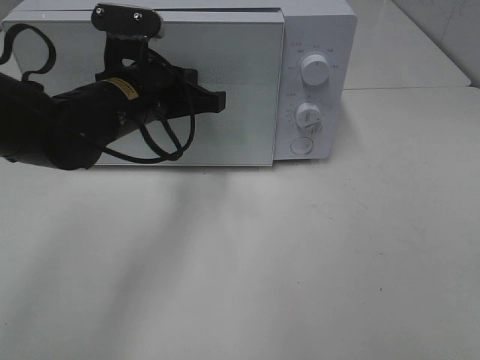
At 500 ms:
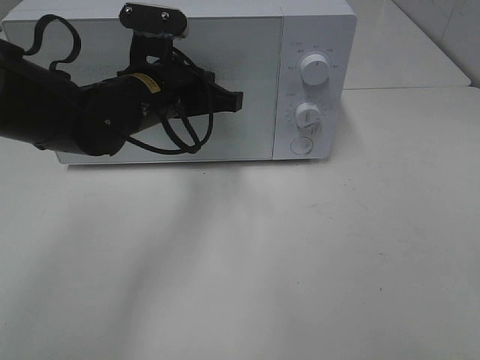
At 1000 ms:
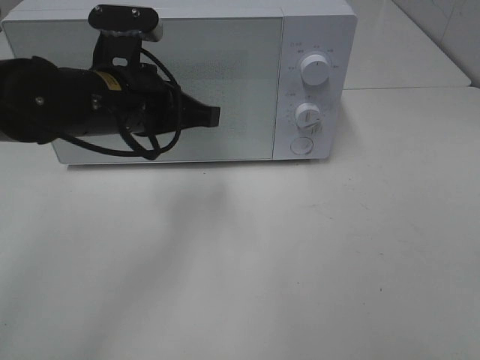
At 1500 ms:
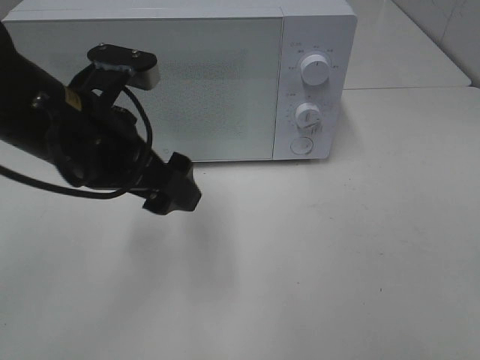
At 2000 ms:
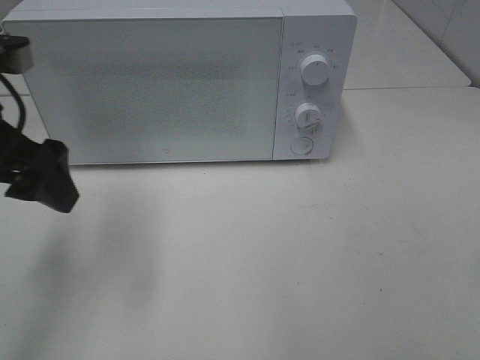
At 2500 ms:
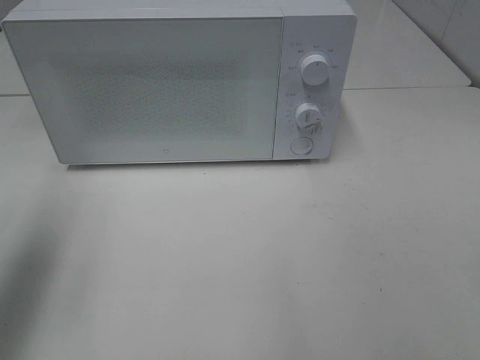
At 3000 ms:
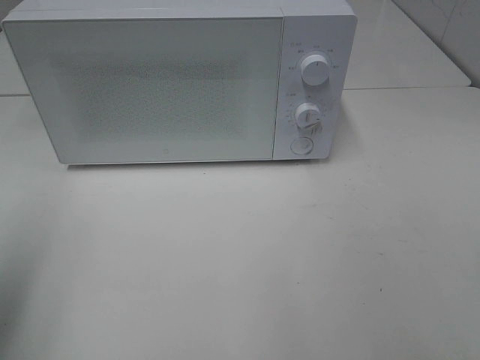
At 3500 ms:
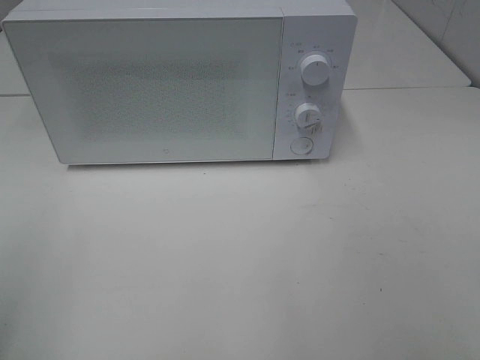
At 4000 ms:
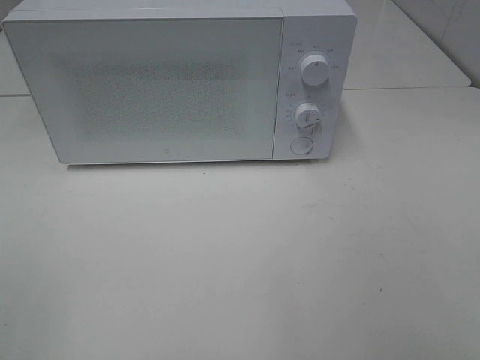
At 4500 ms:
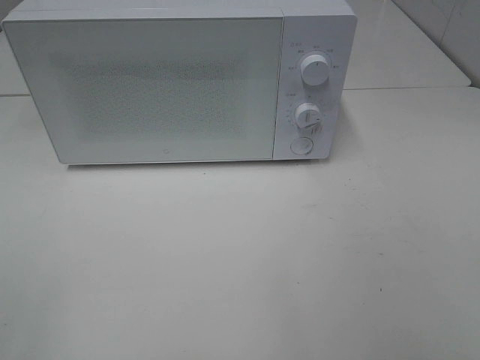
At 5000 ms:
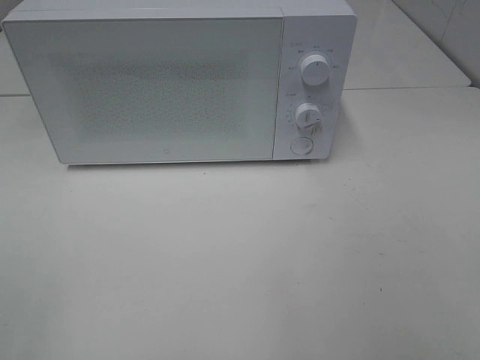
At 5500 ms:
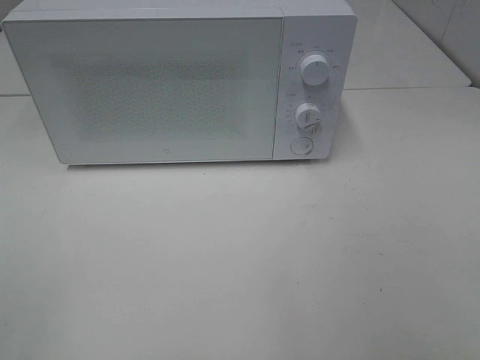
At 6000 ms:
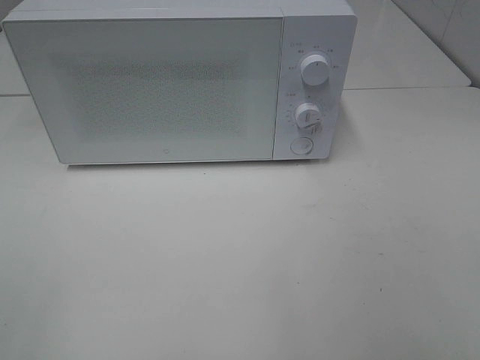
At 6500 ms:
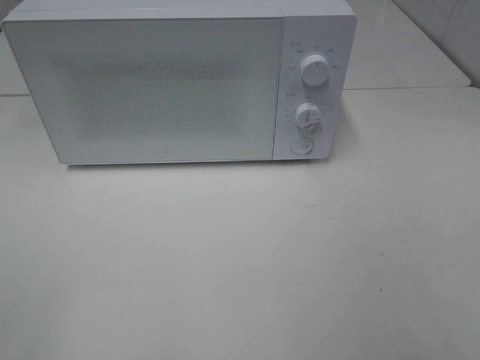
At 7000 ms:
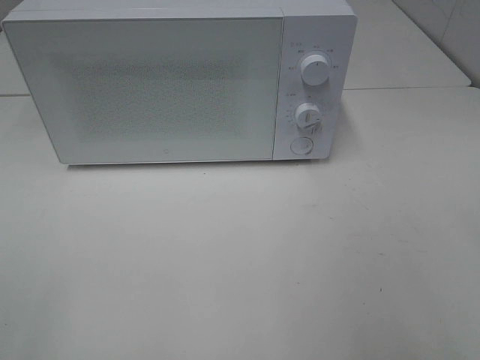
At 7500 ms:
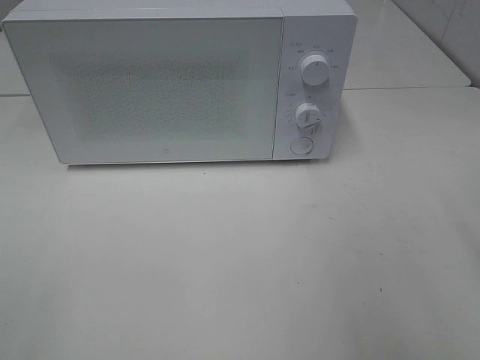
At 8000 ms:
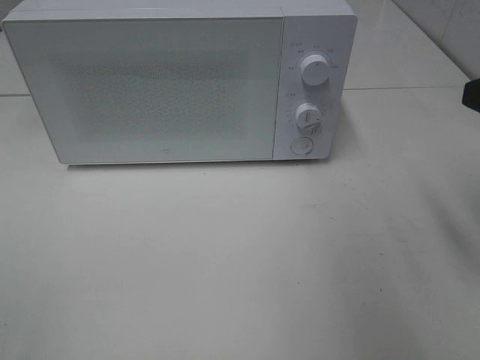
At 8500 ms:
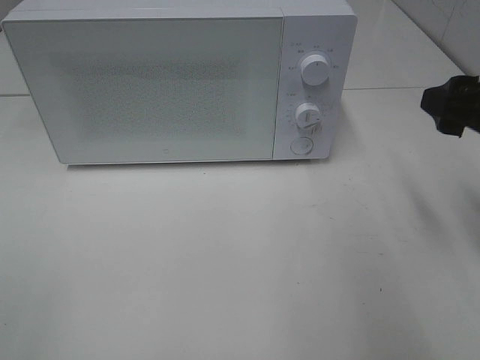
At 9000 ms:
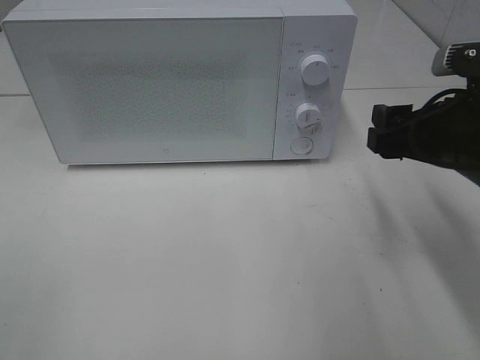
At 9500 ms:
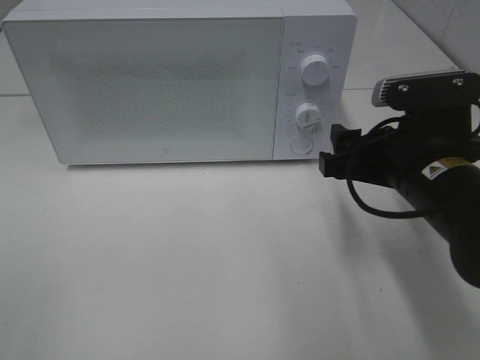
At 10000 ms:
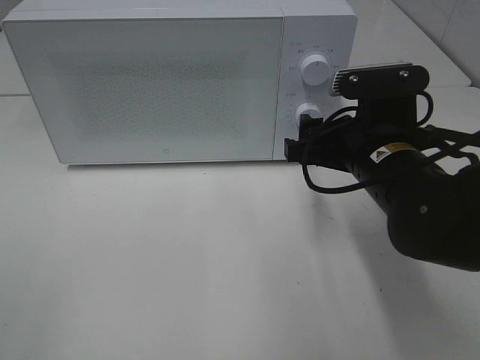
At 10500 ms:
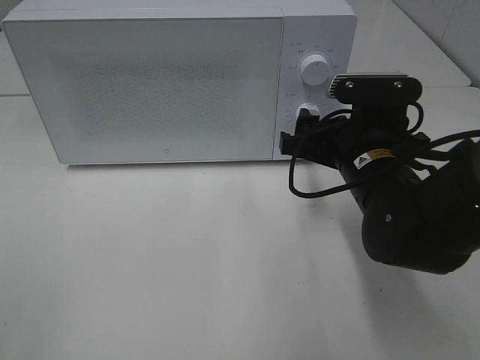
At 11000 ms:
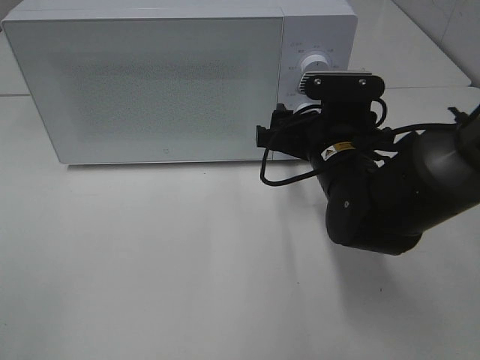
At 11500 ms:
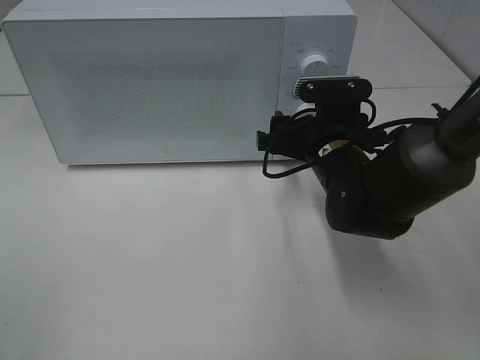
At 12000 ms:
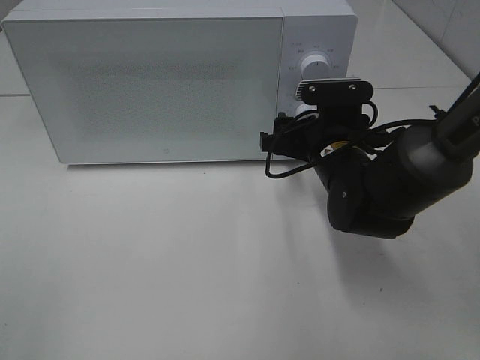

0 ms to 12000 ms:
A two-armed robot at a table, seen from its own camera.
Task of the whole recording: Heat Sandwich.
0 ms to 2000 ms: The left gripper heads to the left, backward and upward, covering some 15 cm, and opens up.
2000 ms to 4000 ms: The left gripper moves backward and to the left, approximately 25 cm.
4000 ms to 6000 ms: Both grippers stay about where they are.
6000 ms to 8000 ms: The right gripper heads forward, covering about 20 cm.
8000 ms to 10000 ms: The right gripper shifts roughly 20 cm to the left, downward and forward.
10000 ms to 12000 ms: The right gripper shifts about 5 cm forward.

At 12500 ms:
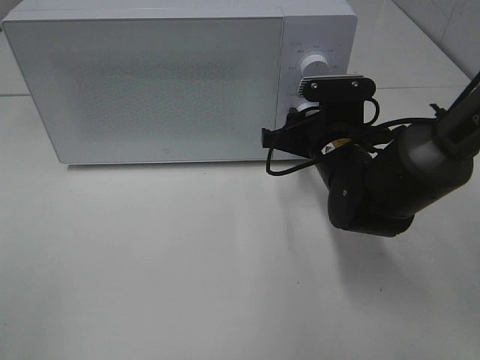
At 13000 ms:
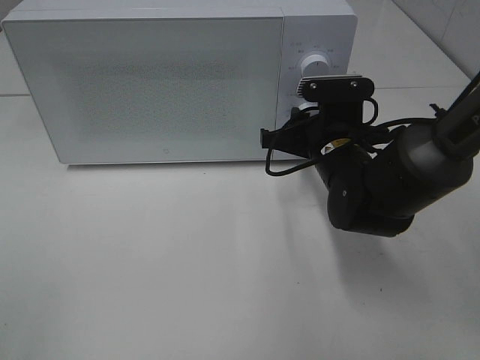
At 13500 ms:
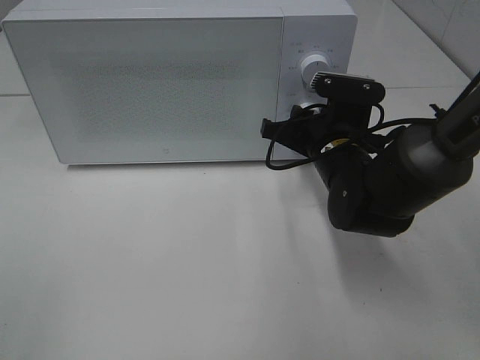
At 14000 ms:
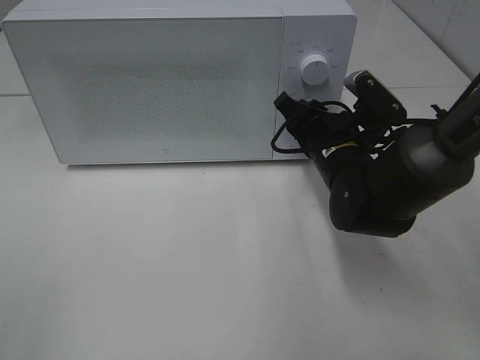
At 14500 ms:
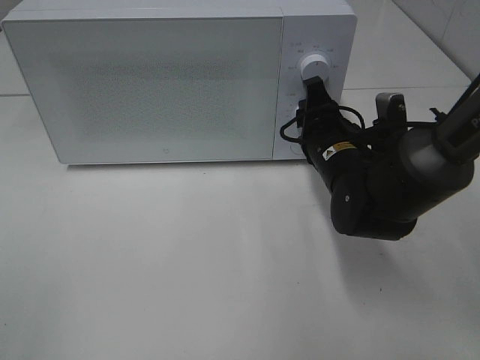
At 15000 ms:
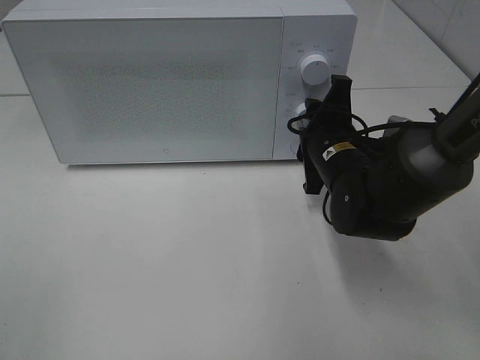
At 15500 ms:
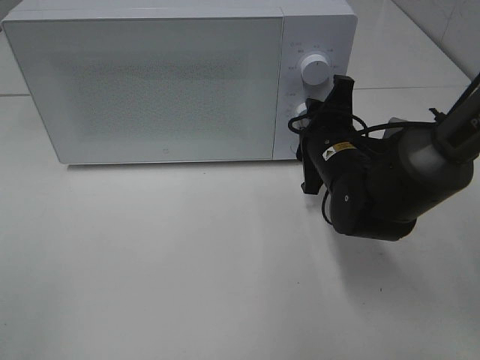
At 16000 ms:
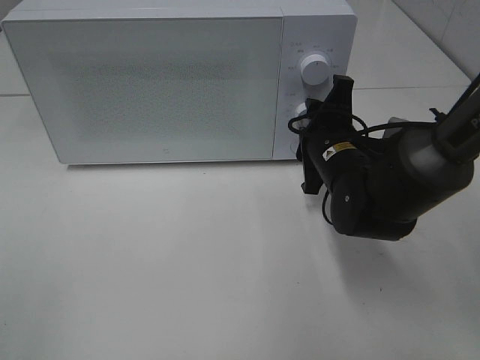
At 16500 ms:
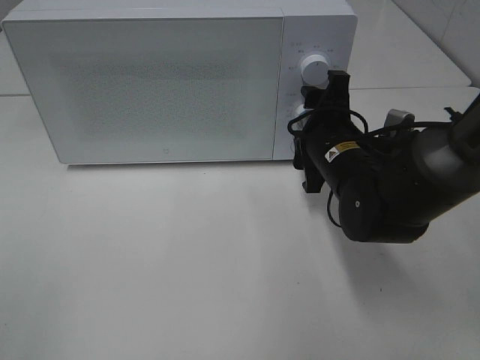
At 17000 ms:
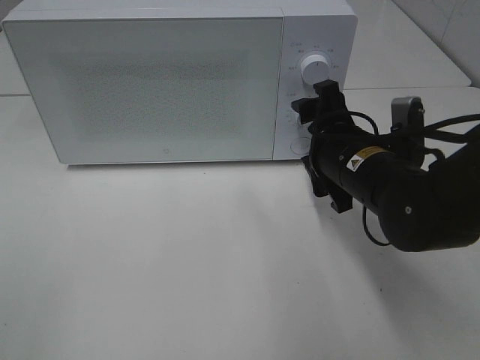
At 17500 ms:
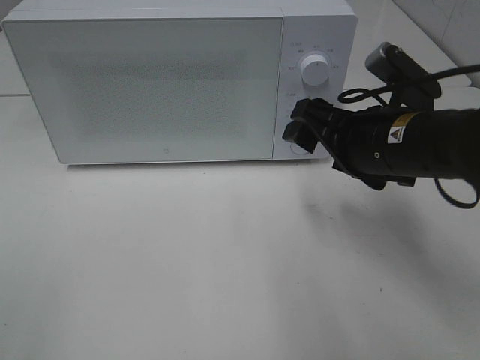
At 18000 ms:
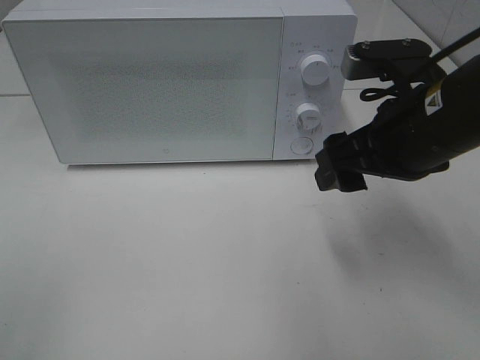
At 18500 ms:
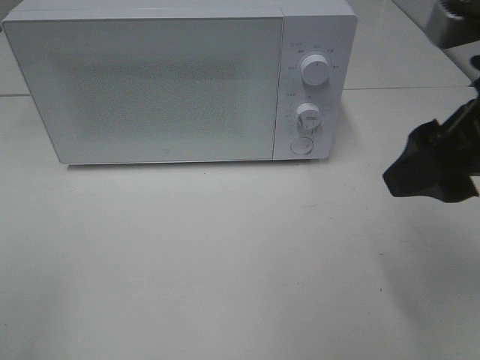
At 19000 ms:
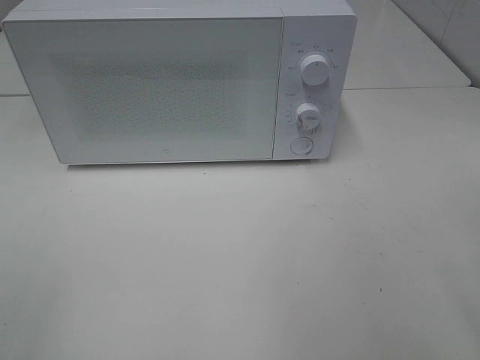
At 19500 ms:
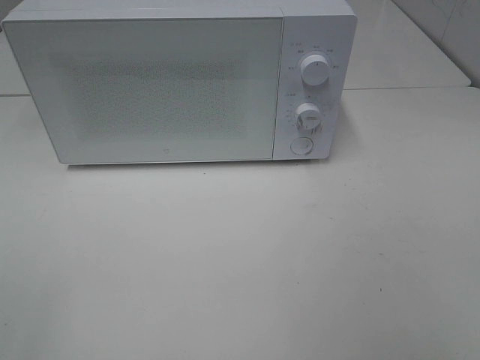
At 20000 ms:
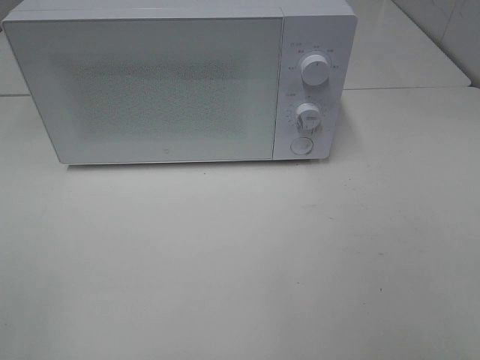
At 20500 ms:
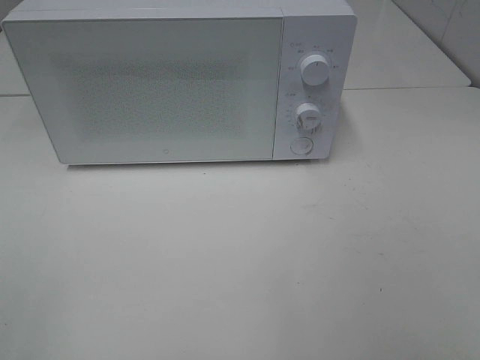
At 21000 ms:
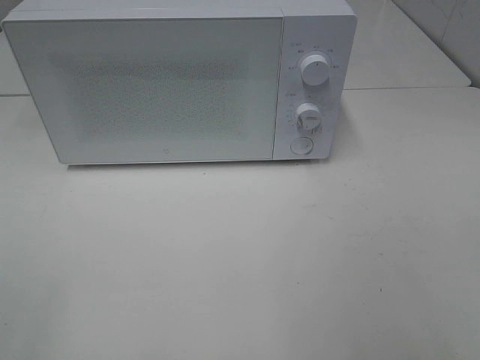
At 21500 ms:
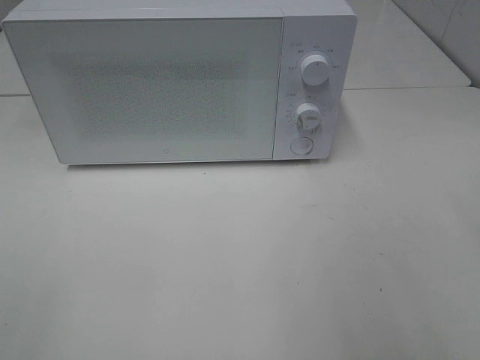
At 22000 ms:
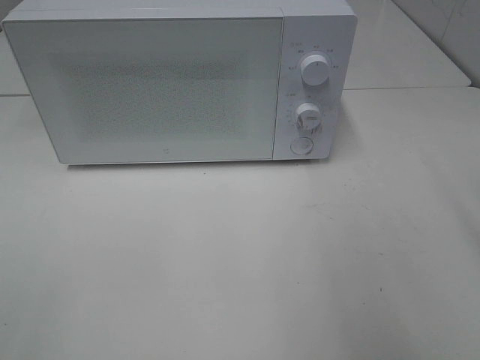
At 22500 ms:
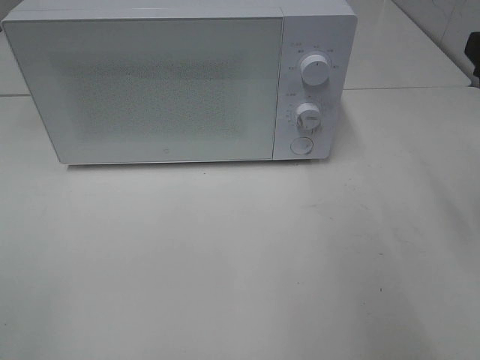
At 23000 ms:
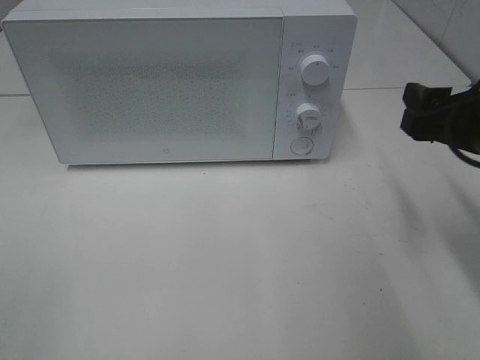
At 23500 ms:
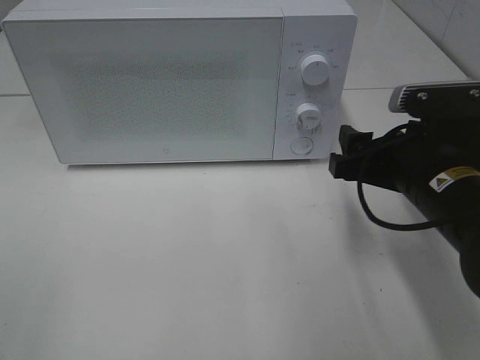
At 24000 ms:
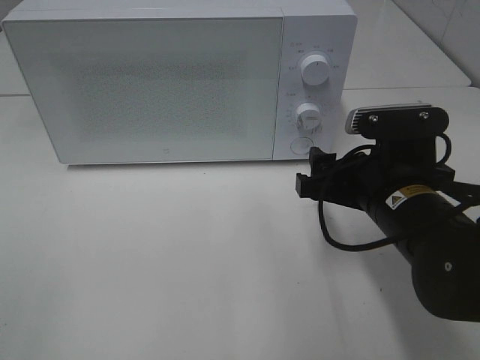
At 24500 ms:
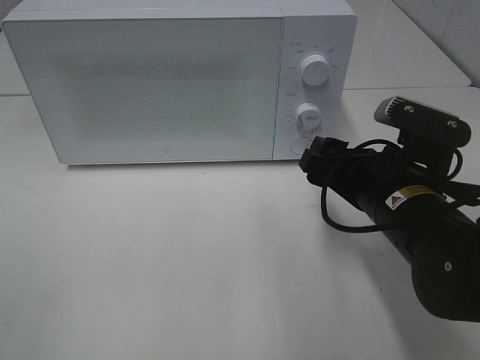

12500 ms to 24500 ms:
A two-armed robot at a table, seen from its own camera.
Task of the whole recording: Heat Sandwich.
Step, 12500 ms to 17000 ms: Right hand: twist timer button.
16500 ms to 18500 ms: The right gripper is displaced upward, backward and to the right by approximately 25 cm.
18500 ms to 20500 ms: The right gripper is displaced backward and to the right by some 20 cm.
22500 ms to 24500 ms: The right gripper heads to the left and downward, covering about 15 cm.

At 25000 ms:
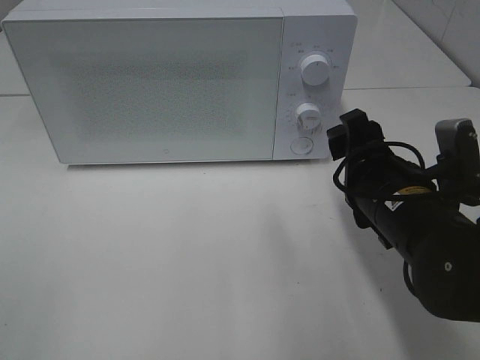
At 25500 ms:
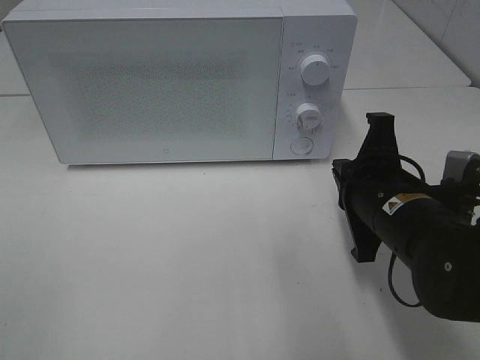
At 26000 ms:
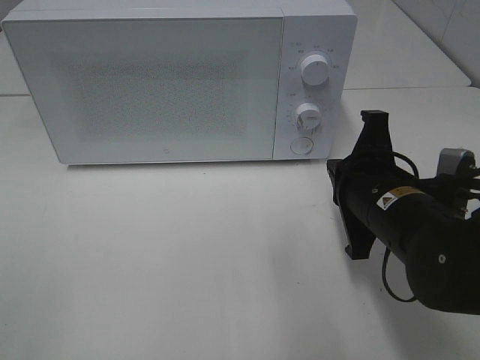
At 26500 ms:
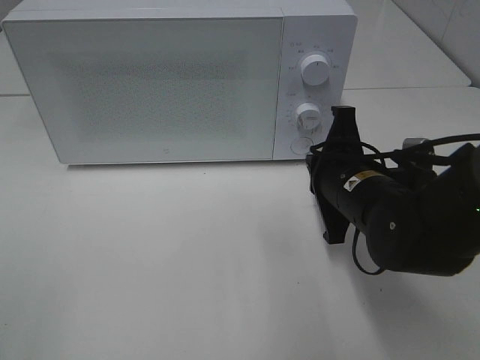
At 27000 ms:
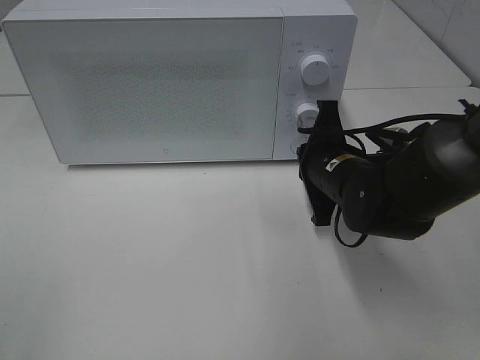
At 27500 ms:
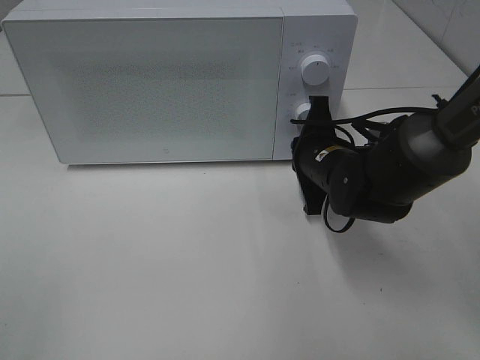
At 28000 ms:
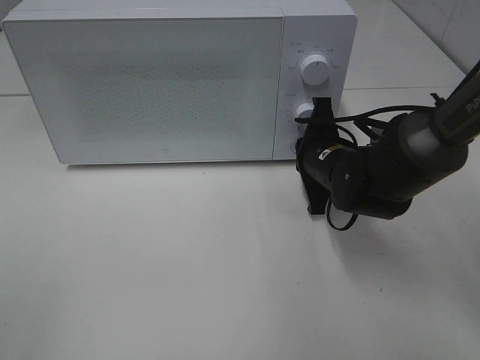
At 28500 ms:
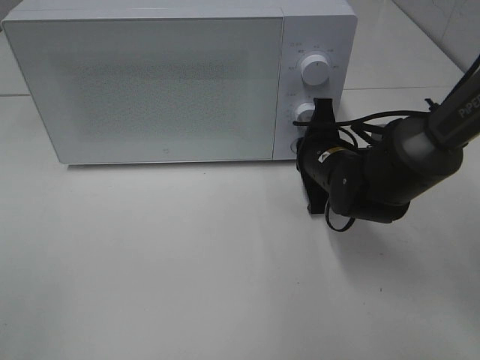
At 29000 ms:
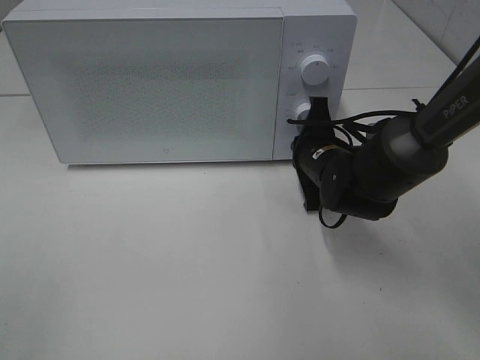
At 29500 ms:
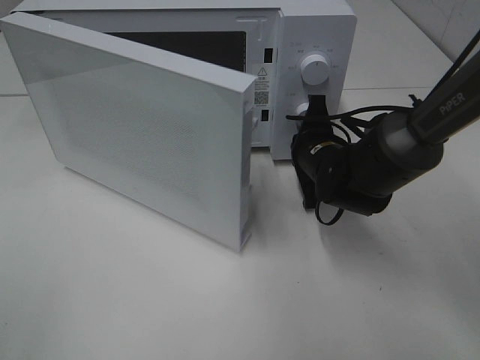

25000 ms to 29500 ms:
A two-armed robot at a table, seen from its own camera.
Task of the whole recording: Heat Sandwich.
25000 ms to 27000 ms: The right gripper is displaced forward by some 10 cm, and closes up.
27000 ms to 29500 ms: The right gripper moves forward, roughly 5 cm.
